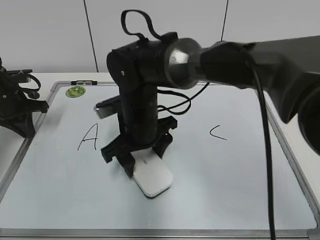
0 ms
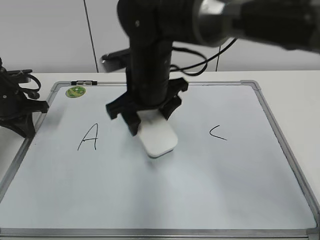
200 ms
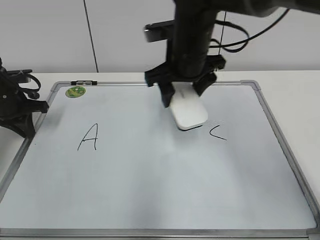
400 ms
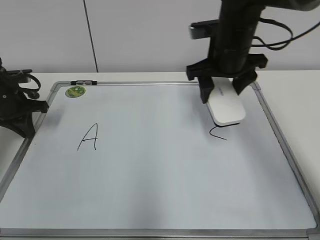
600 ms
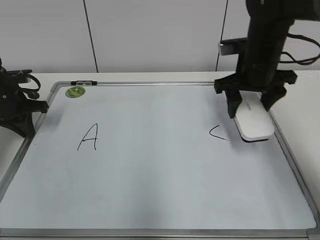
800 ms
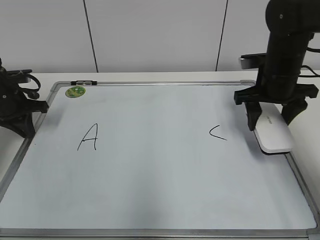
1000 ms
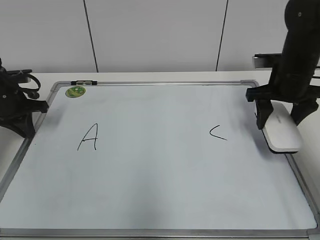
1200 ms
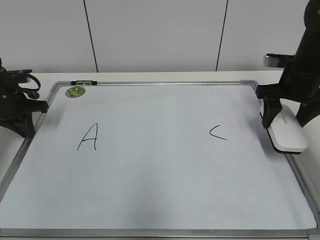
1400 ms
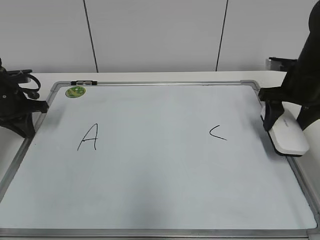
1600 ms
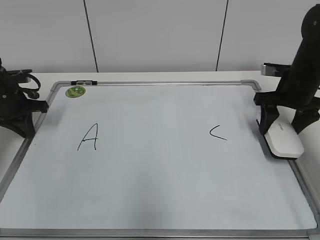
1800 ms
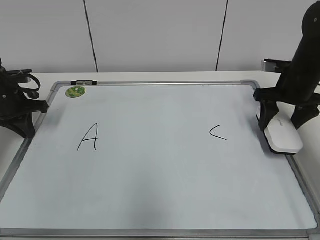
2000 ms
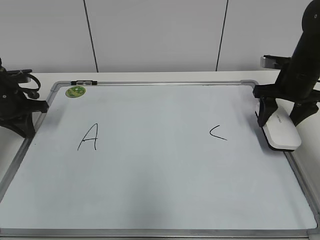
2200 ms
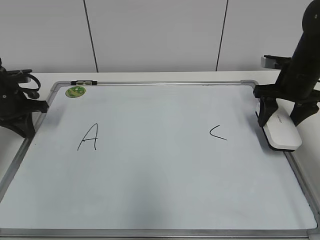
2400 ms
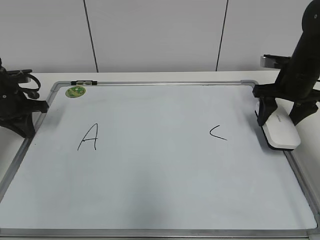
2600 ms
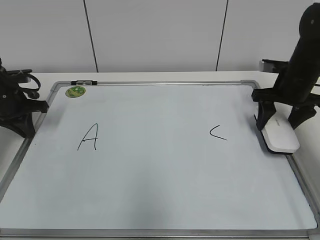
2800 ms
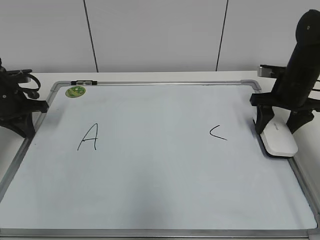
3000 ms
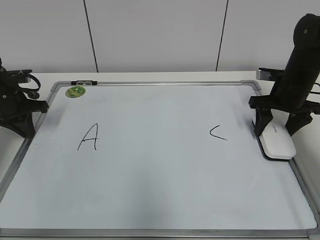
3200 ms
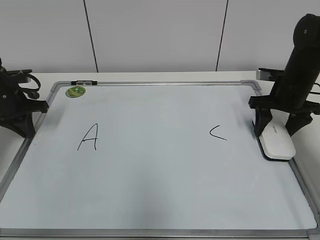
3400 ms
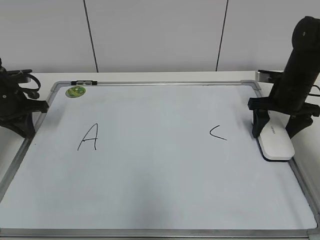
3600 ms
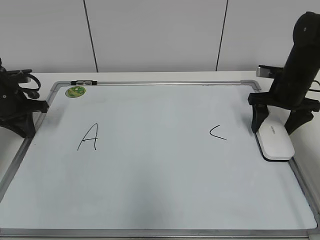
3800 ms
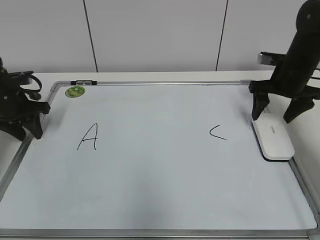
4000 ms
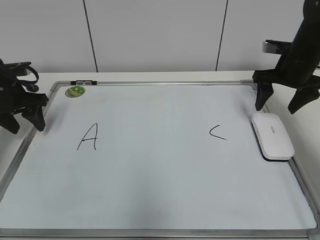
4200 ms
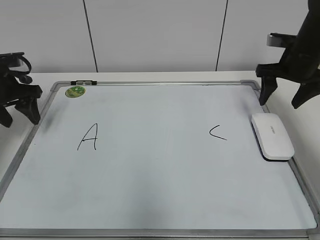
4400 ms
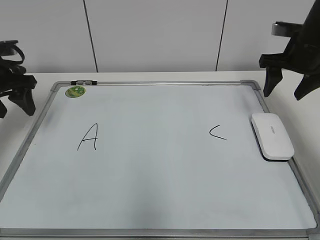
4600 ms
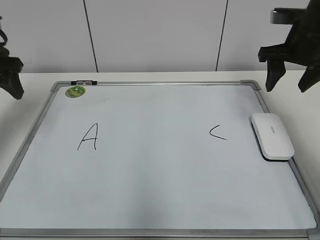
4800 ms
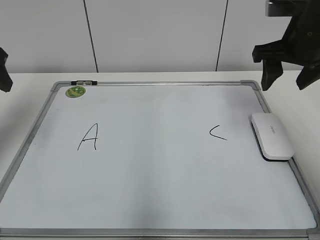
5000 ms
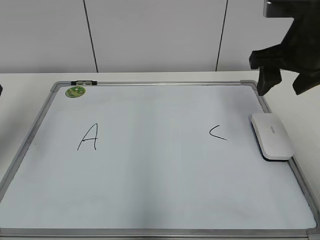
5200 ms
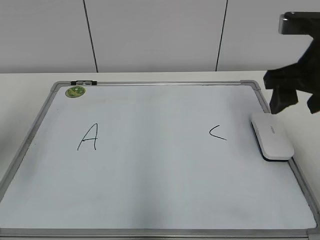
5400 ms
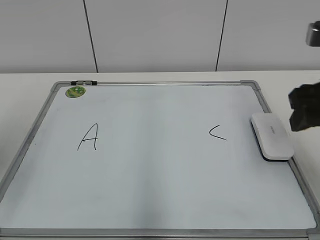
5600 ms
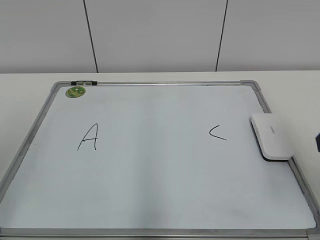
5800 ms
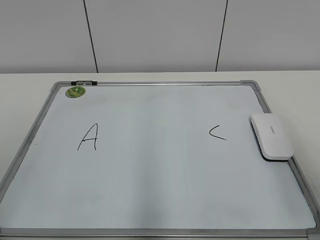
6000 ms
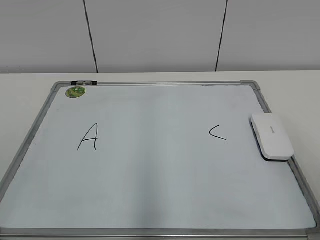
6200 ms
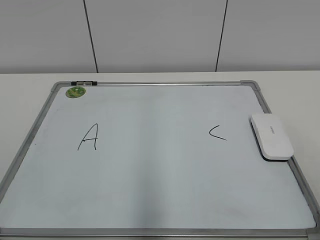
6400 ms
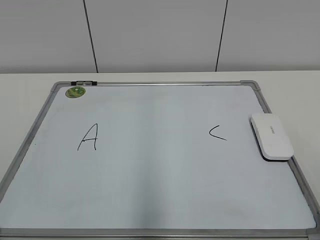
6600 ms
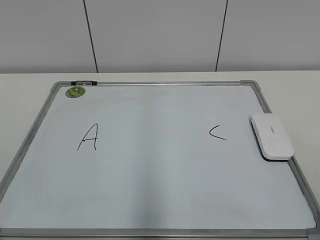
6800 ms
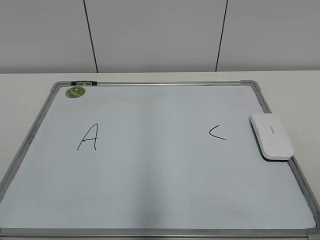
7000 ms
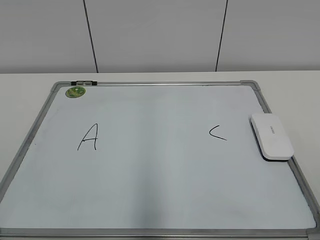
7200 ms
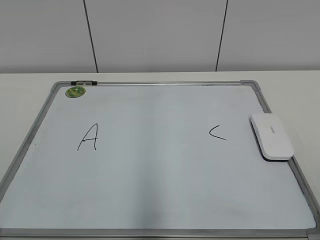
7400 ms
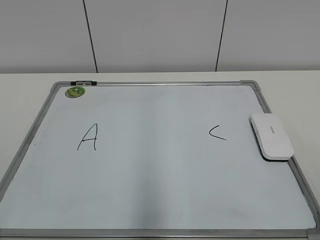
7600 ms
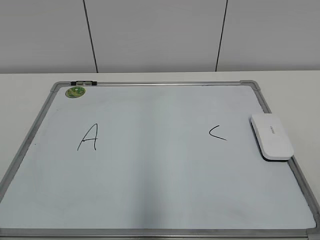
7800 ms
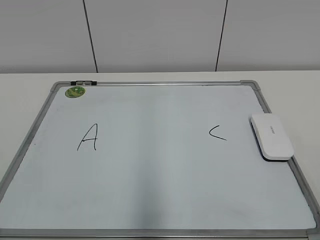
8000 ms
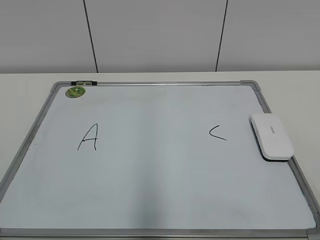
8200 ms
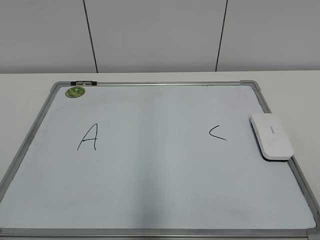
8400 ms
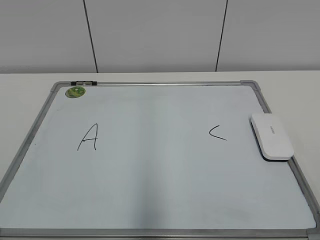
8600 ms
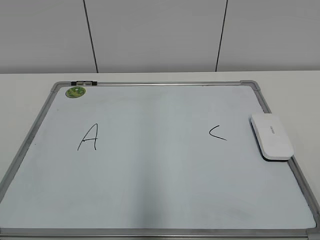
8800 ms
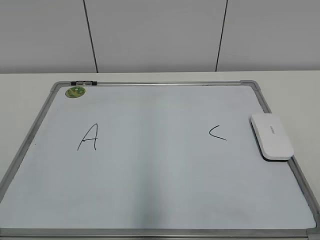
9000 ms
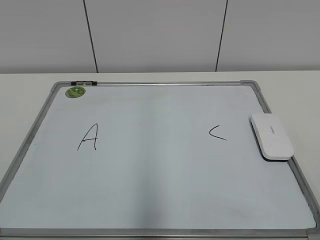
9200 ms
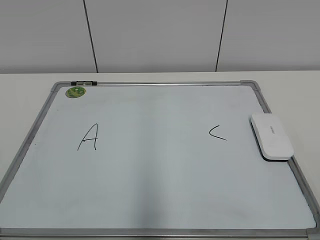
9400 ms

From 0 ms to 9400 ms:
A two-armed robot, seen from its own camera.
Task of the whole recording: pick up the eraser on the blackboard and erase the letter "B".
Step, from 0 ms to 3400 ms: Put down the eraser with your right hand.
From 0 ms to 1600 ms: The right gripper travels to the right by about 30 cm.
From 1600 ms to 3200 ms: The grippers move only a little.
From 3200 ms to 4800 ms: Both grippers move upward, about 15 cm. The right gripper opens, then closes again; the left gripper opens its fingers.
From 4800 ms to 6200 ms: The two grippers go some 30 cm backward.

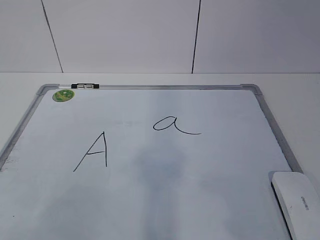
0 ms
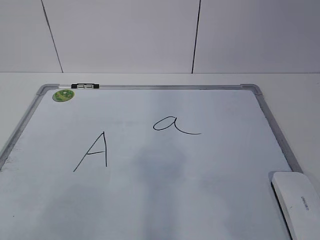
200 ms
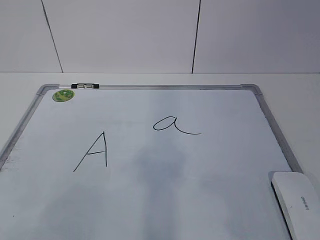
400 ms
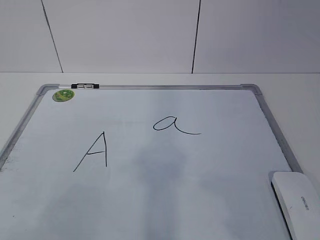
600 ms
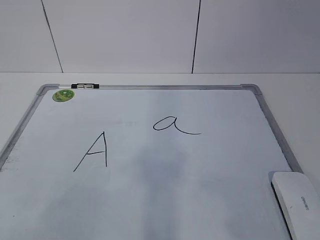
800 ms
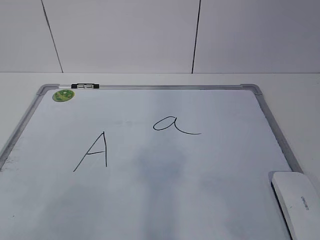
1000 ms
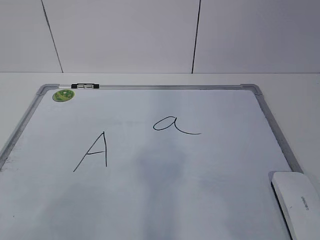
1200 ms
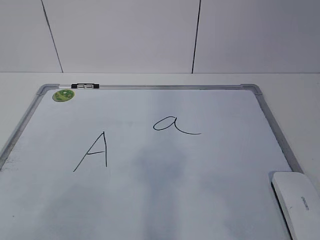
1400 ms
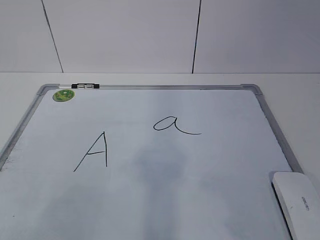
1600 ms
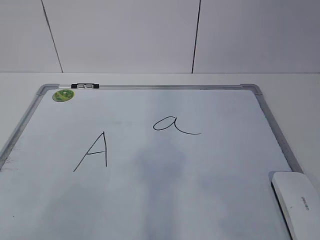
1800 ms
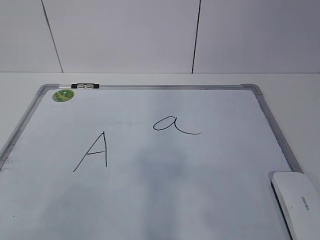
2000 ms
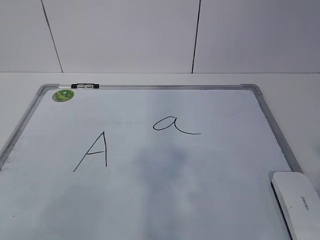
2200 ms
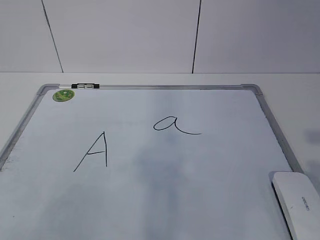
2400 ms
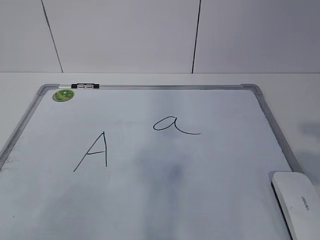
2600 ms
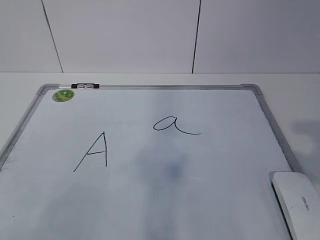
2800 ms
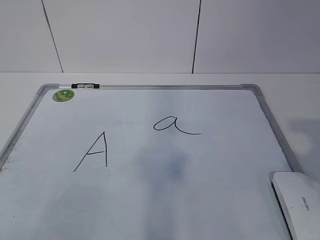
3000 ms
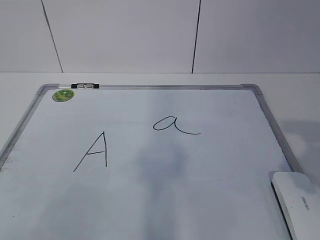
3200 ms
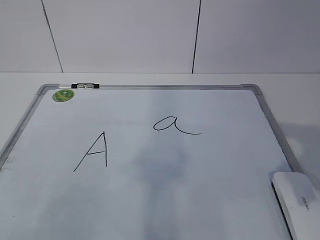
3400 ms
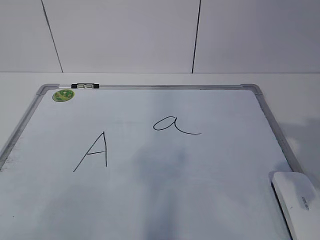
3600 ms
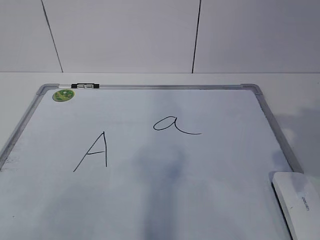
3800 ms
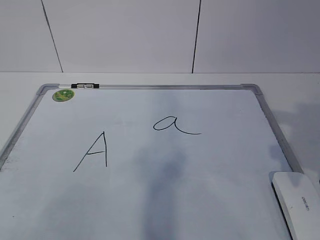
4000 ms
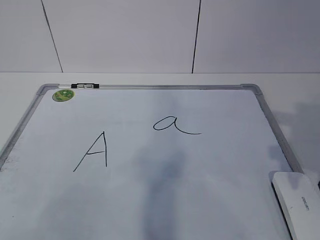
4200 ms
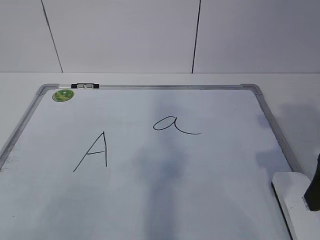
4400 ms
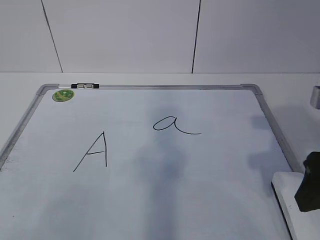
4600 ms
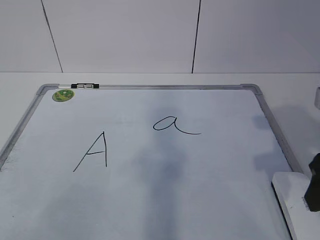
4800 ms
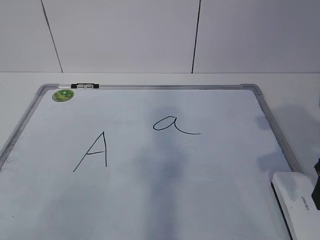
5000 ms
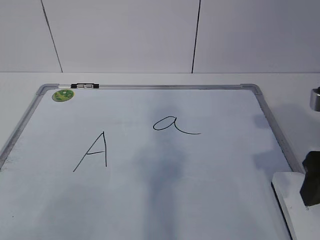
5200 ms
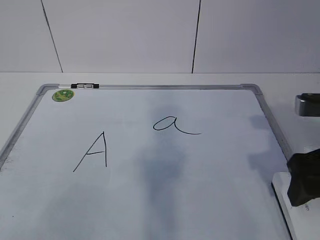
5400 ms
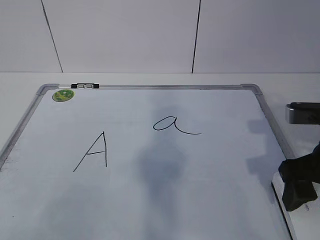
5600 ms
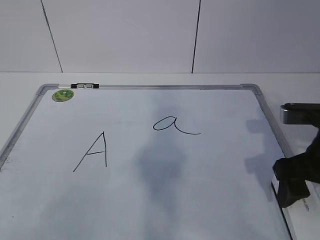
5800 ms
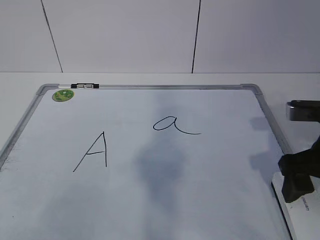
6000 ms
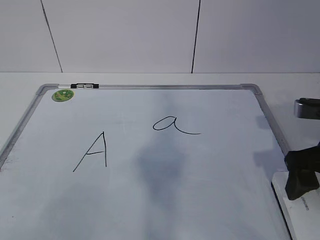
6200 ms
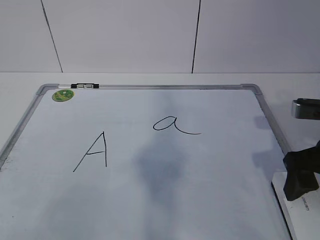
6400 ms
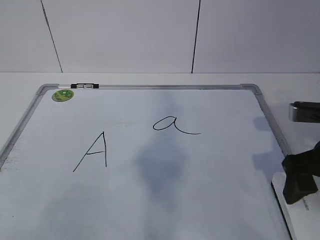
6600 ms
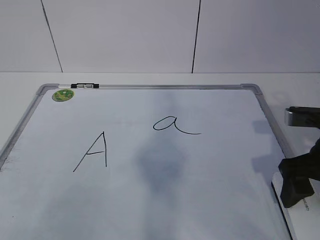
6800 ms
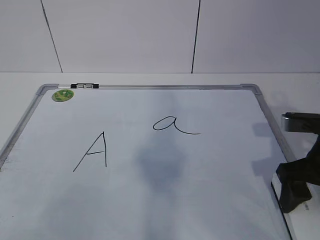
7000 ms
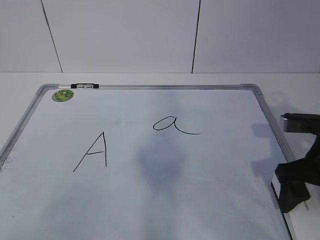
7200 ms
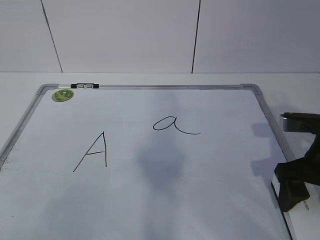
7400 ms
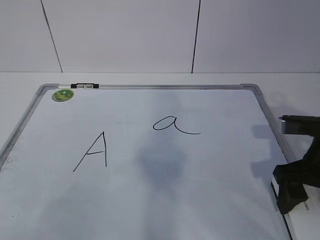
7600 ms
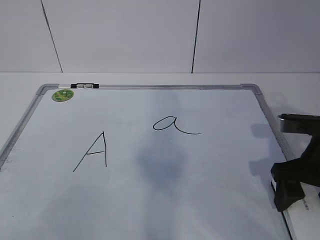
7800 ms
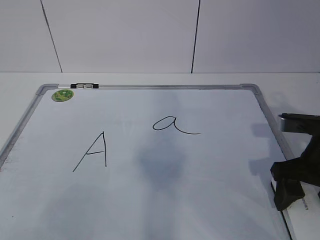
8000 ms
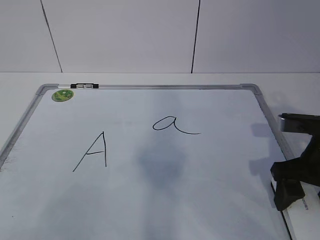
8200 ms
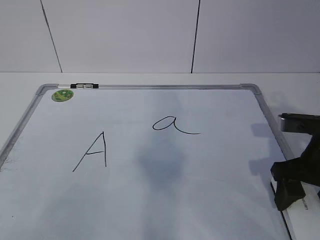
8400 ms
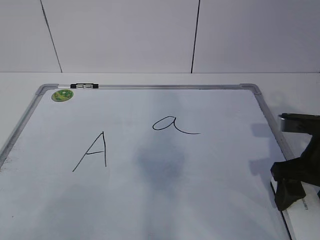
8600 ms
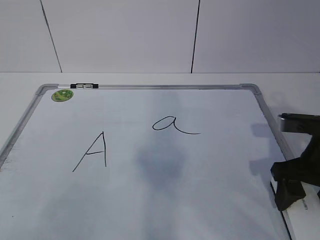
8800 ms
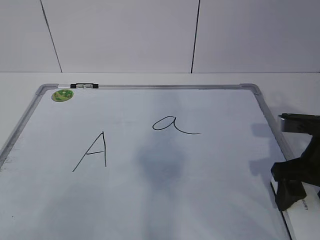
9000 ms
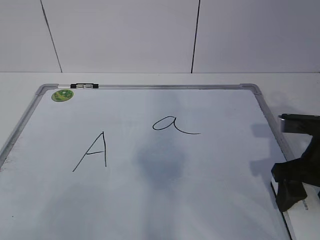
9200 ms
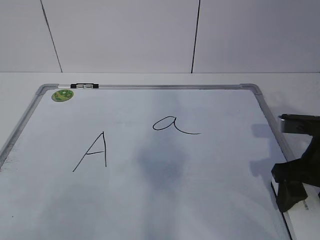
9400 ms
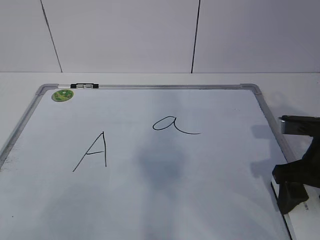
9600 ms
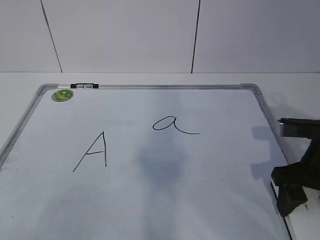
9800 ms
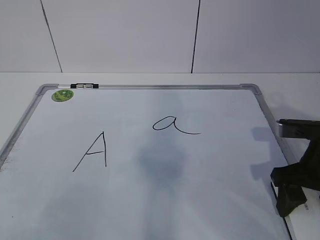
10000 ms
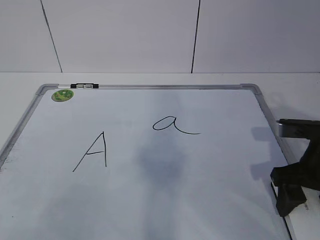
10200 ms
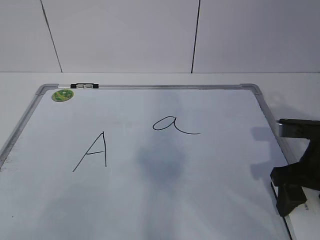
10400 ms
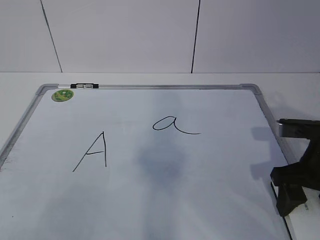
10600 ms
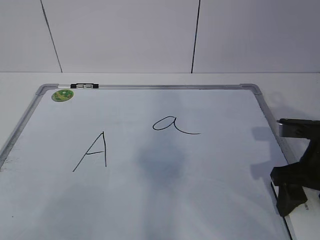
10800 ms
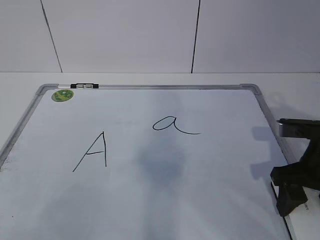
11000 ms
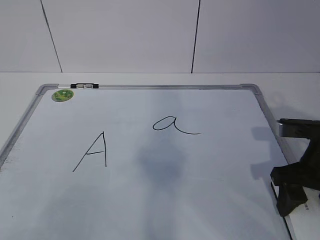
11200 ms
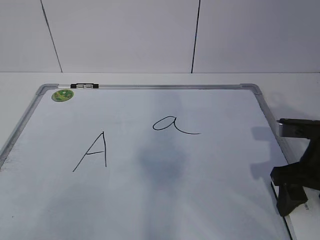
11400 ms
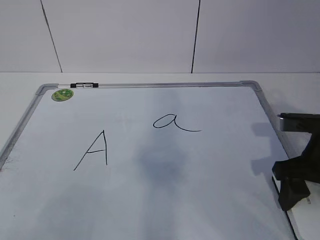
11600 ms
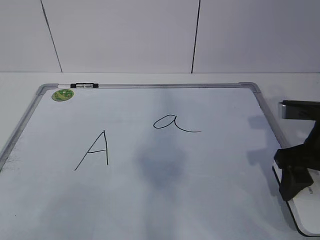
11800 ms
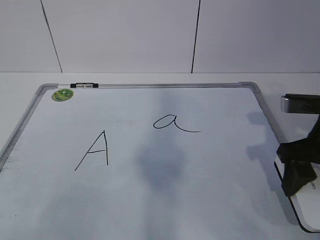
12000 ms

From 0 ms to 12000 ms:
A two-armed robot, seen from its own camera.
Task of the whole recording: pick up the eraser on the blackboard and erase the letter "a".
Step, from 0 ms to 9600 ms: Grab the eraser with your right hand.
From 3000 ms to 4400 ms: The right gripper goes approximately 10 cm forward, and closes.
From 4400 ms to 6000 ms: The right gripper moves downward, some 5 cm, and opens.
From 6000 ms to 7600 ms: The grippers move only a little.
From 7600 ms to 9000 ms: The right gripper closes.
From 9000 ms to 10400 ms: Both grippers stay about where they are.
From 10400 ms to 12000 ms: The grippers make only small movements.

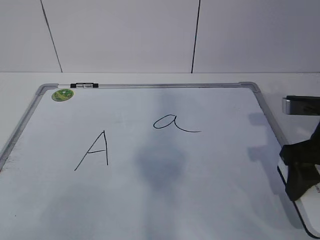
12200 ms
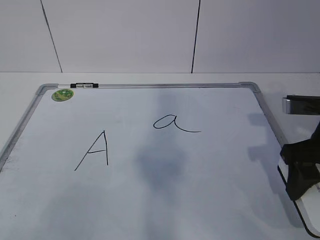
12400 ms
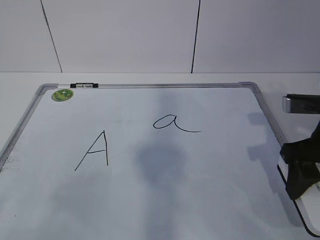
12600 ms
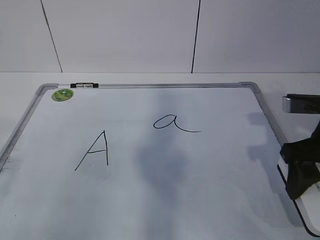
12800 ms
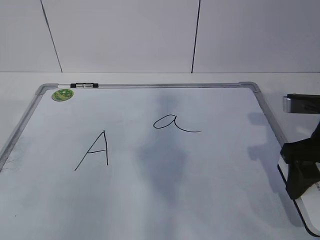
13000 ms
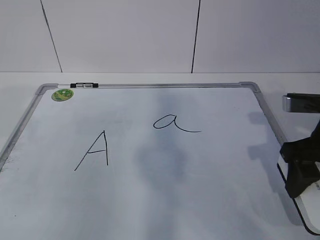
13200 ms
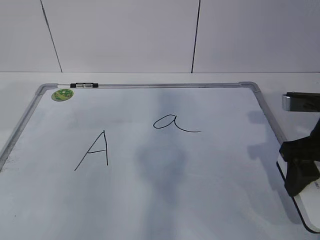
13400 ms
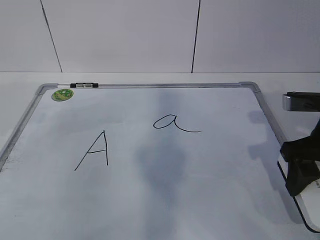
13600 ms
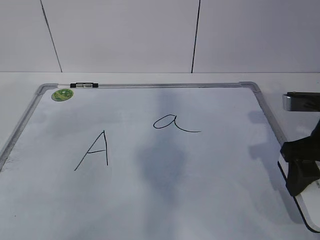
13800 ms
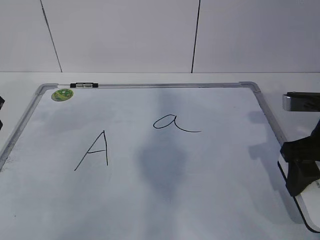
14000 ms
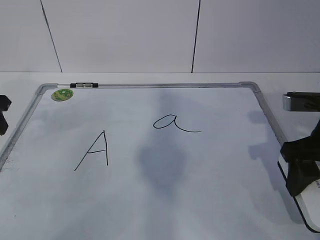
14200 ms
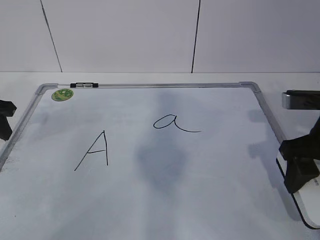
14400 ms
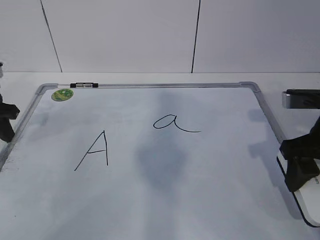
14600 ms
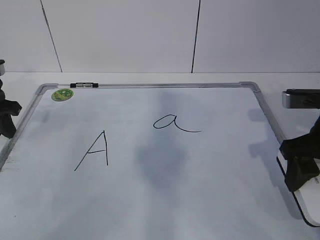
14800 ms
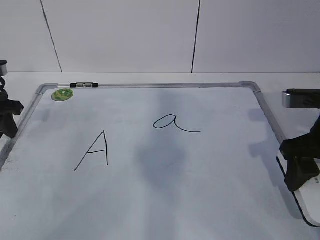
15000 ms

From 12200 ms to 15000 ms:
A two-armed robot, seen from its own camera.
Task of the whole recording: pick up the eraser on the blackboard and erase the letter "a".
From 13600 ms to 15000 ms: The left gripper moves forward and downward, roughly 10 cm.
